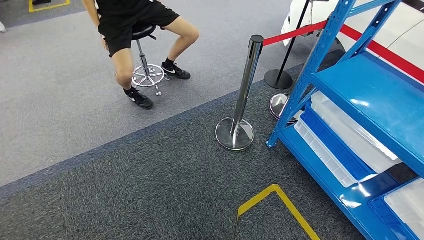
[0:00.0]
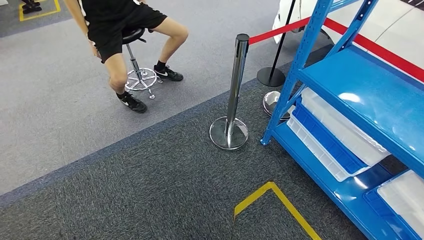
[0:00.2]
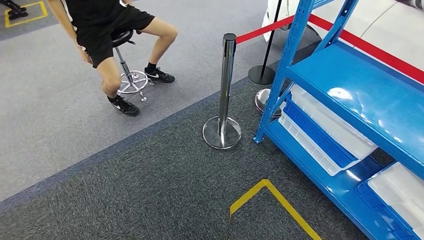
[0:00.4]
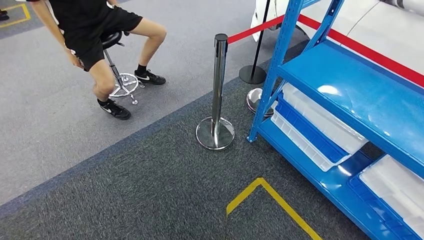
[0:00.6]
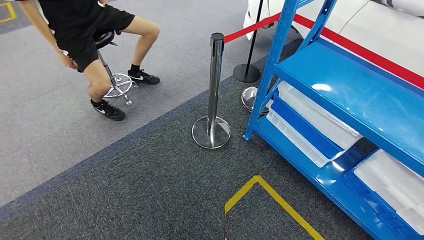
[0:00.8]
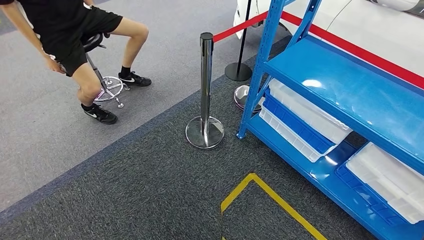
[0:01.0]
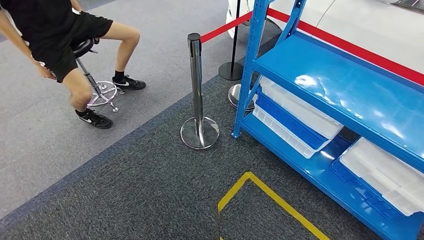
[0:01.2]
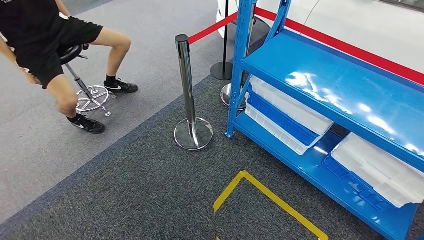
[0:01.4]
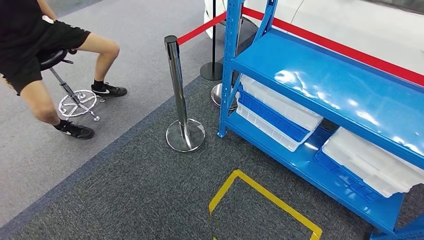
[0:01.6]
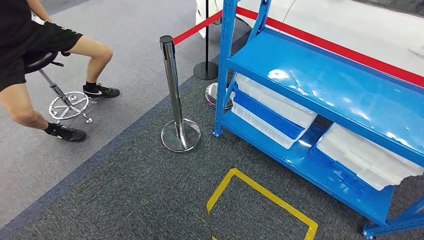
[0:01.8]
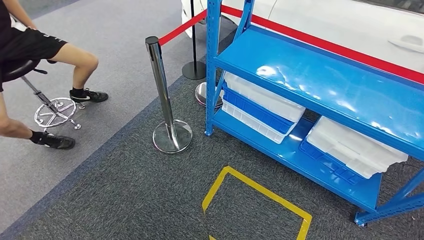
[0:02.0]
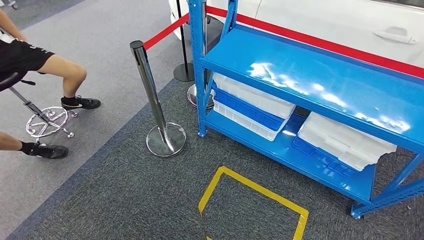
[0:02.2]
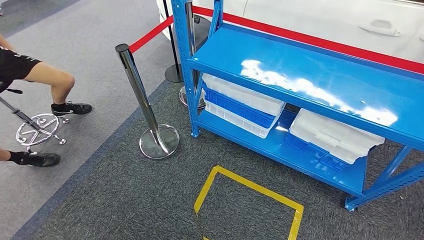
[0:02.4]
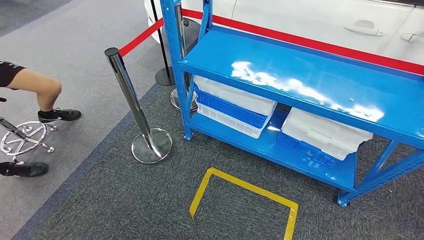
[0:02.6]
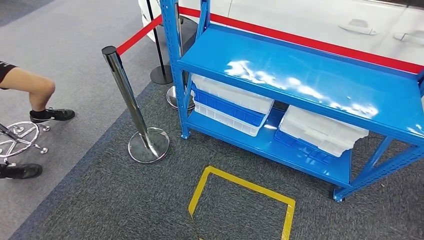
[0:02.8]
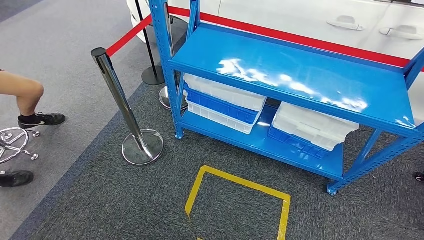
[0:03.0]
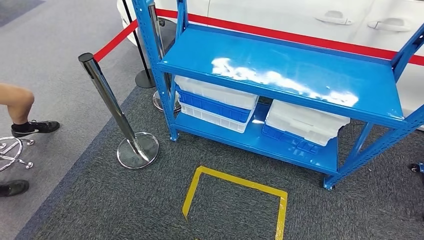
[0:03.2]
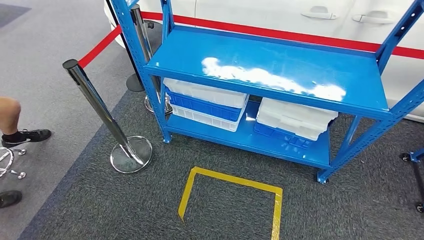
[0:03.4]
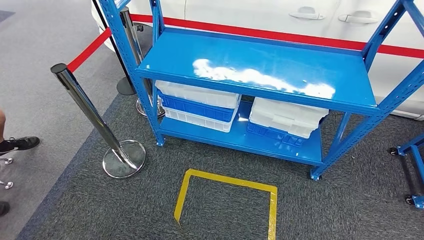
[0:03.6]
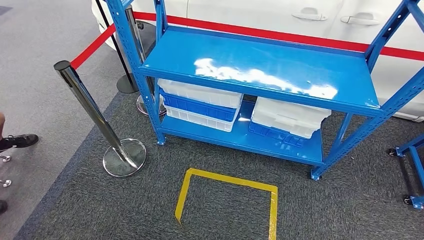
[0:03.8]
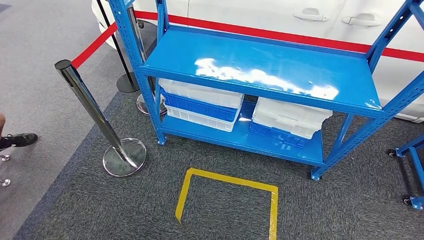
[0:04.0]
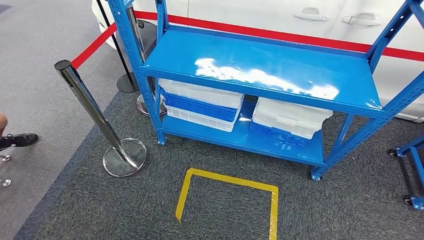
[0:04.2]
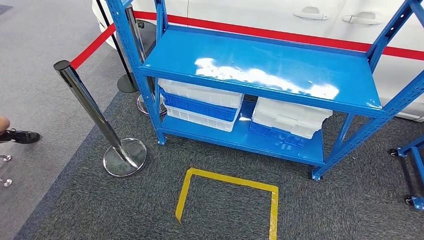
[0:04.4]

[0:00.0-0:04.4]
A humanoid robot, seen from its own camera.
Step, 0:00.0 to 0:04.4: Move to the initial position of the shelf.

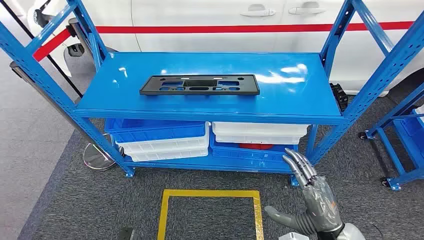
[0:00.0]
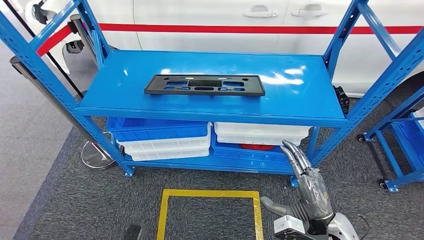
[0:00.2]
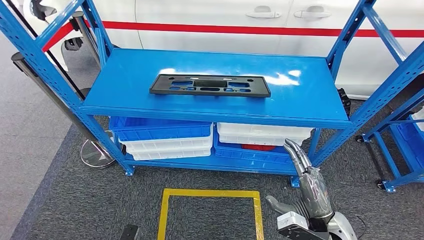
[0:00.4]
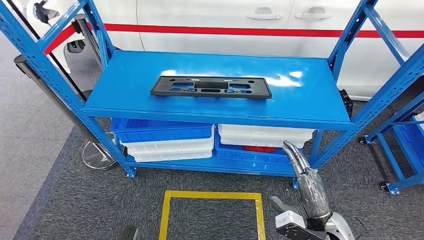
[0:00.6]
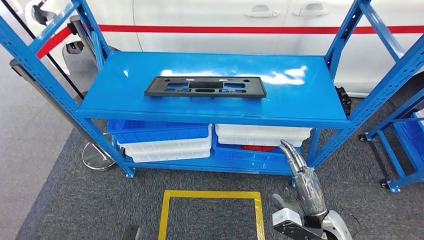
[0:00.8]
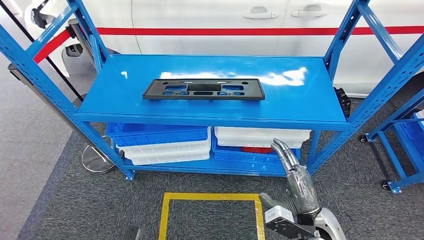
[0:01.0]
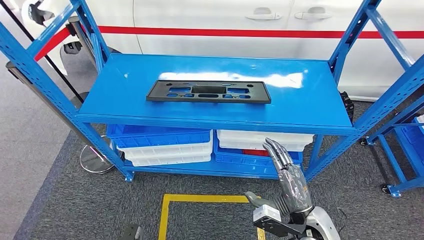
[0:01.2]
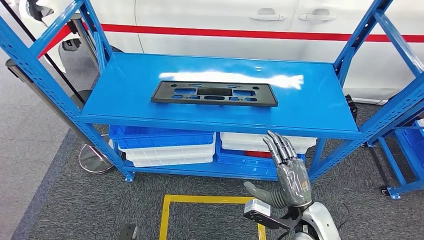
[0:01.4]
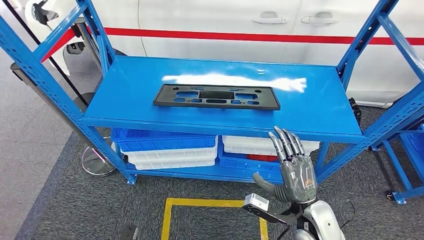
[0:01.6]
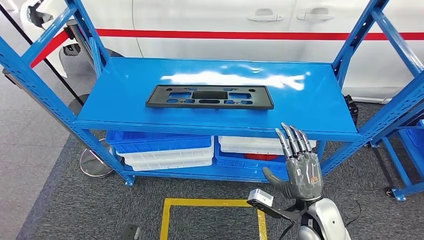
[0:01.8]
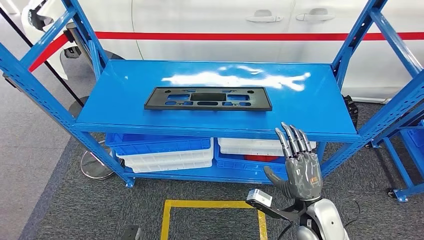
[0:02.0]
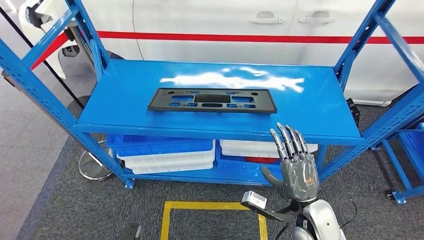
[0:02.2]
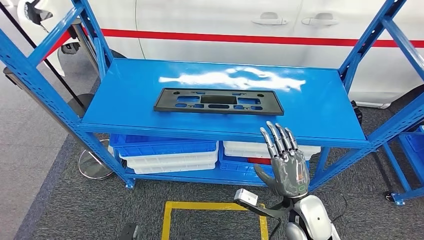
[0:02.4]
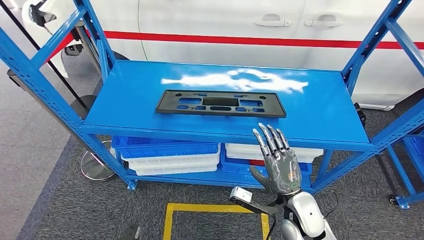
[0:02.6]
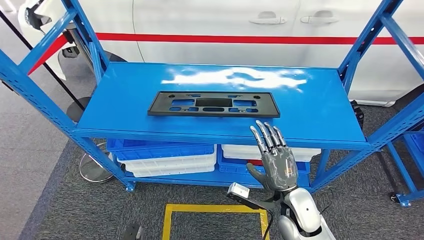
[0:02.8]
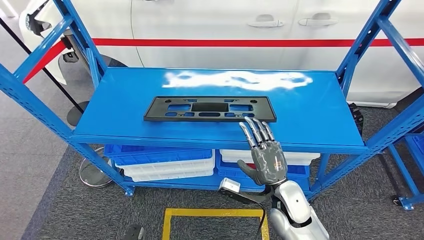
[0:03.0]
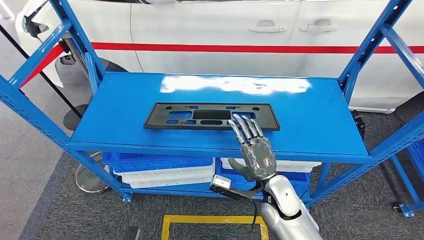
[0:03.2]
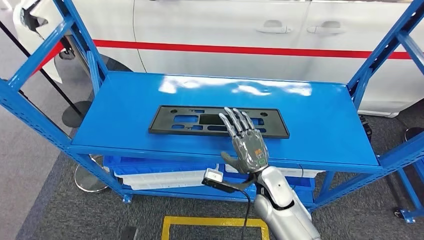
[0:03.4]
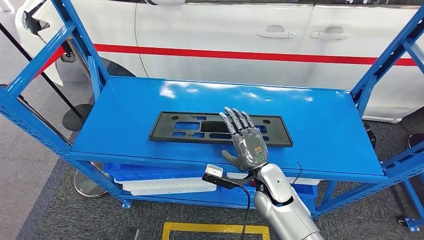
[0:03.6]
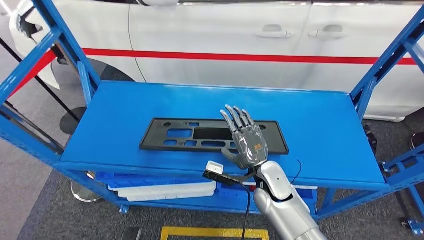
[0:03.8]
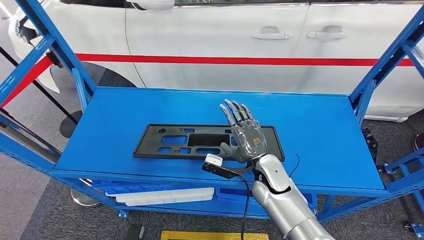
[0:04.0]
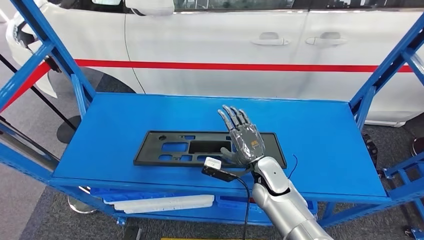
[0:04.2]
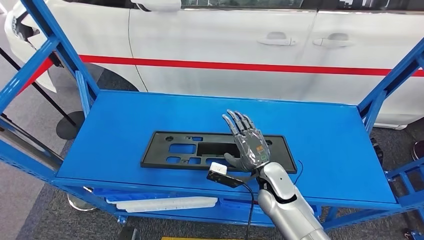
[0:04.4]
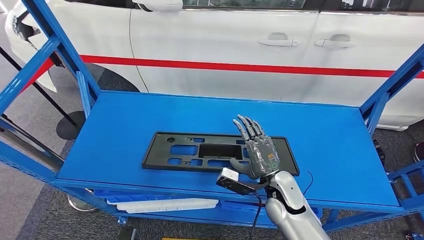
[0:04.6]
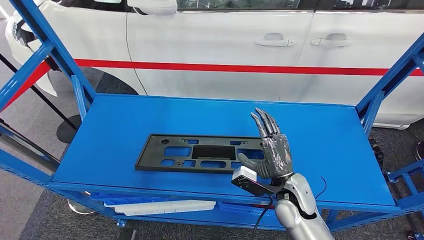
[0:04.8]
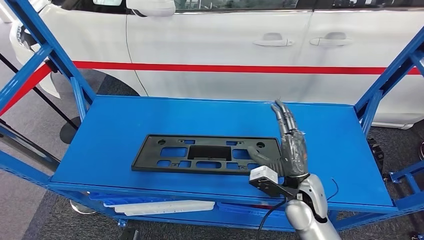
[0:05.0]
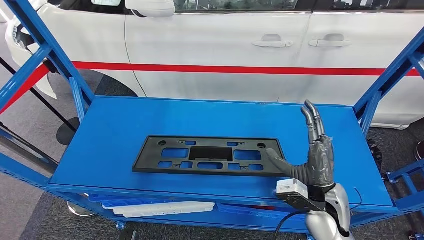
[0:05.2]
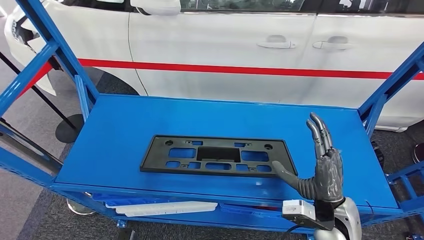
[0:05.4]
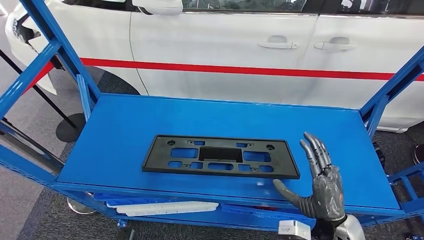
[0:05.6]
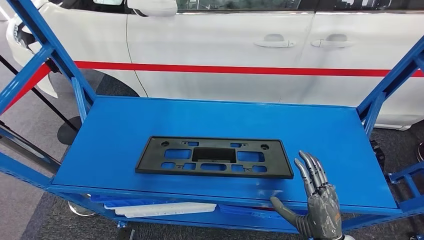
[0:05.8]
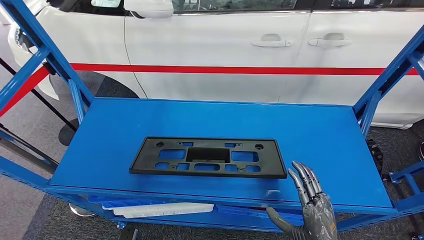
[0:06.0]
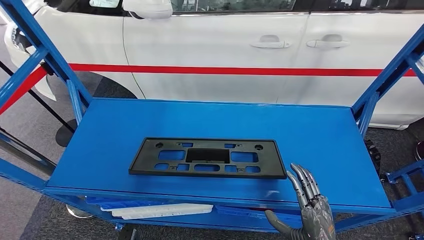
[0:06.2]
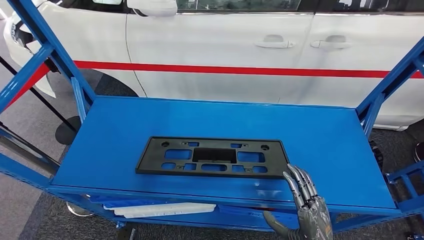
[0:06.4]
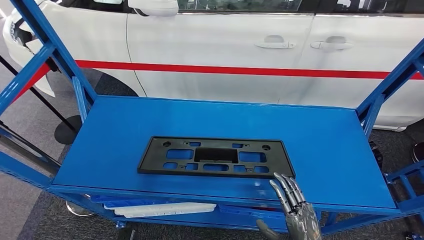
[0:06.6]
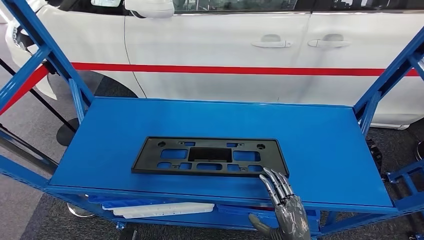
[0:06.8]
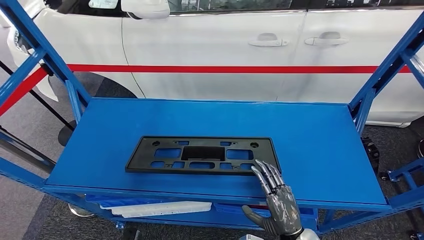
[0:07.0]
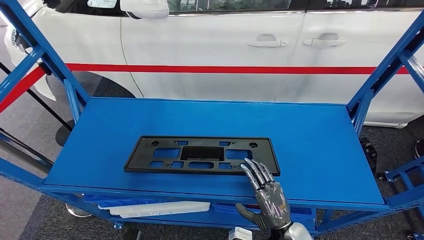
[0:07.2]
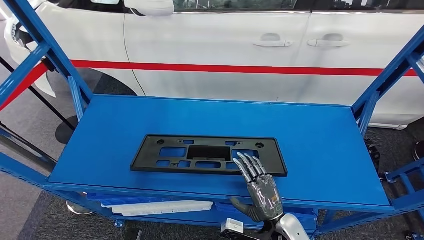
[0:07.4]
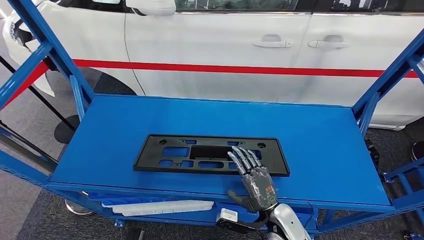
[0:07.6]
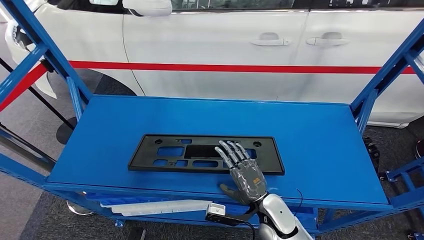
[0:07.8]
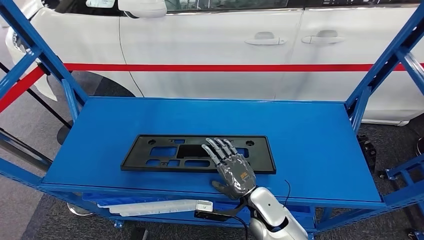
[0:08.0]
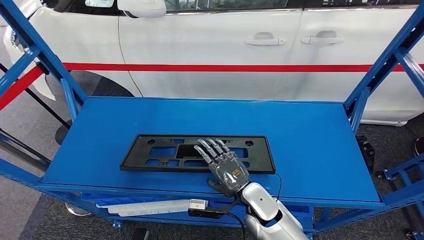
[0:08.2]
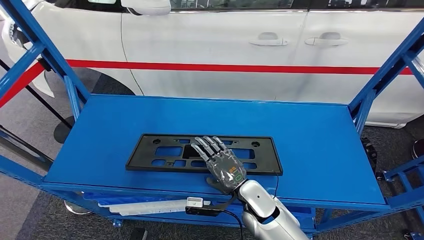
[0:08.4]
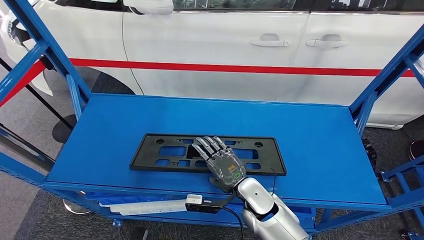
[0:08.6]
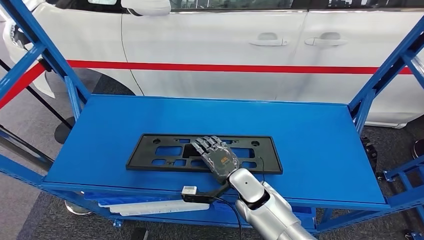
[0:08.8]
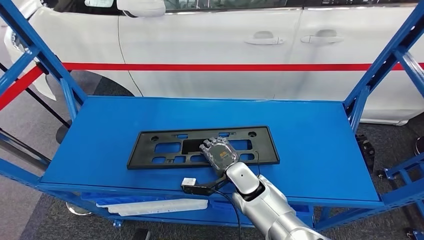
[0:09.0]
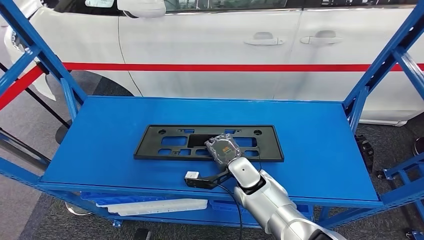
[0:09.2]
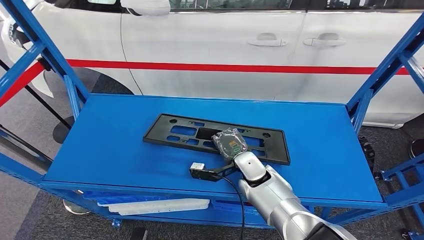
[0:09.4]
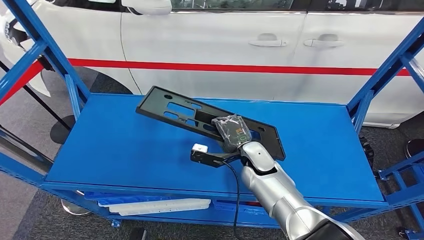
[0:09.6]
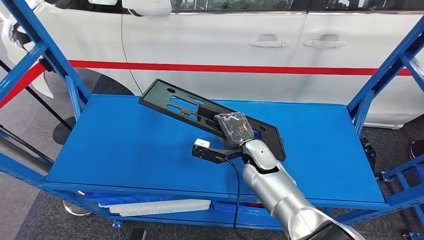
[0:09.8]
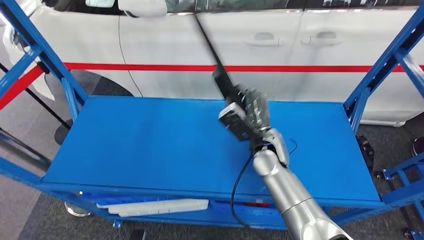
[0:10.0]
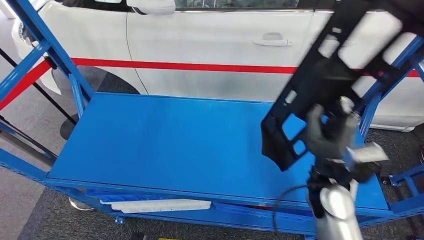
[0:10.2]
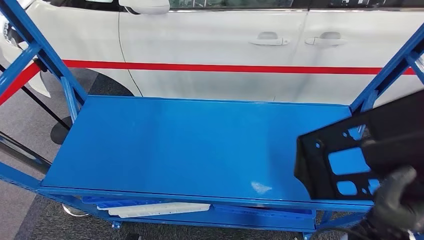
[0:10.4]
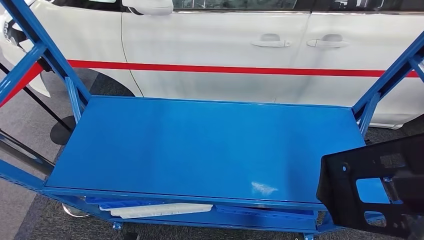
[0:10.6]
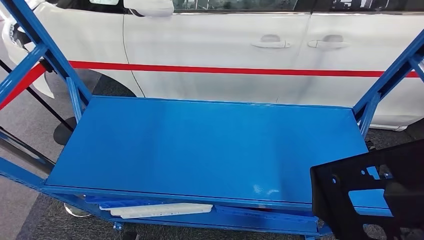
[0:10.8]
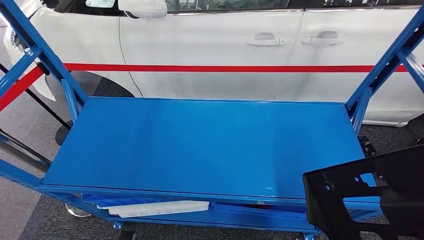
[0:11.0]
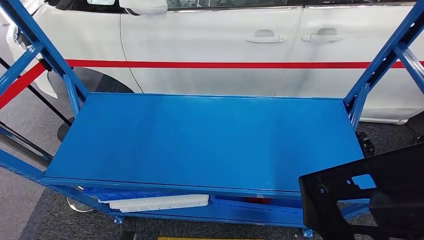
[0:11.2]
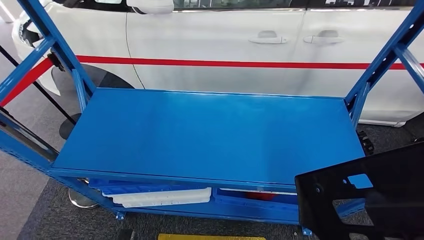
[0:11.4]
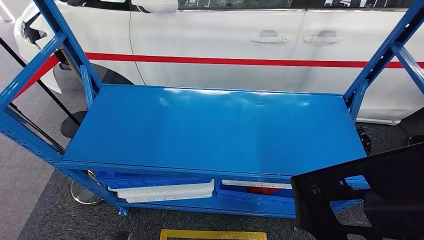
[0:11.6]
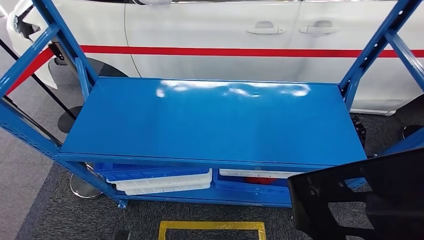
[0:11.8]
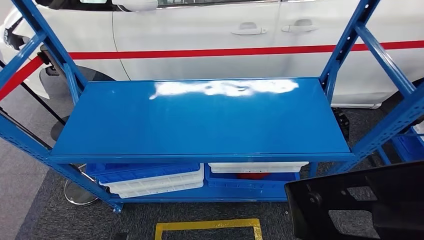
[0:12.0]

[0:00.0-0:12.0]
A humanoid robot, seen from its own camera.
Step, 0:00.0 to 0:11.4: Pick up the large material from the shelf.

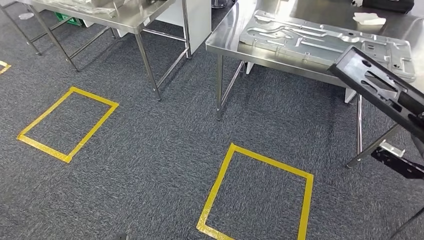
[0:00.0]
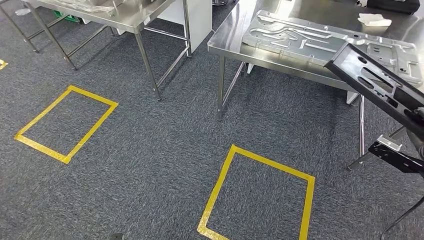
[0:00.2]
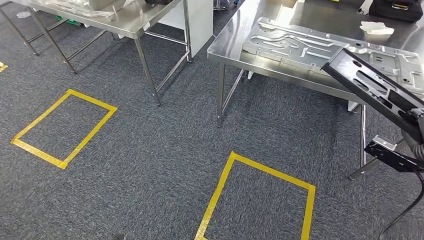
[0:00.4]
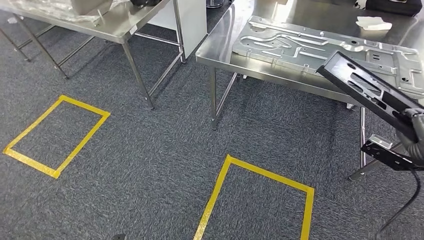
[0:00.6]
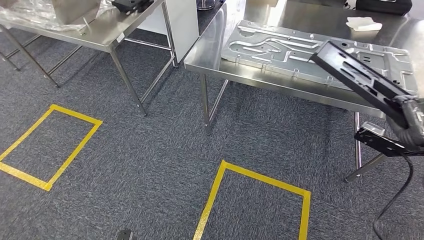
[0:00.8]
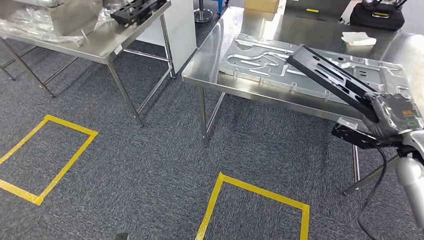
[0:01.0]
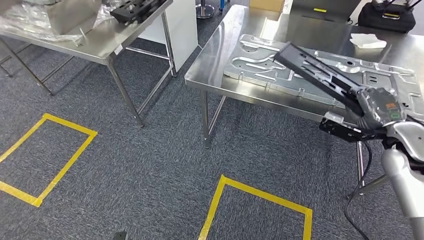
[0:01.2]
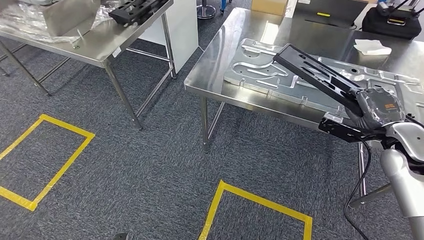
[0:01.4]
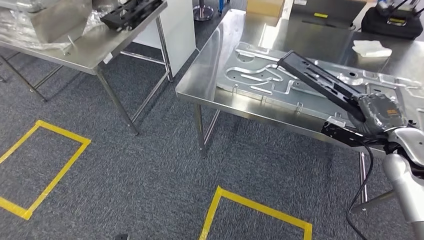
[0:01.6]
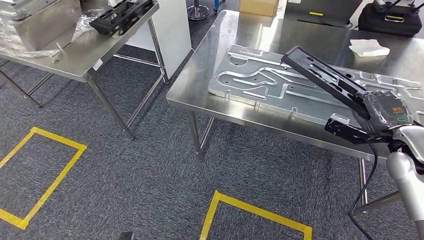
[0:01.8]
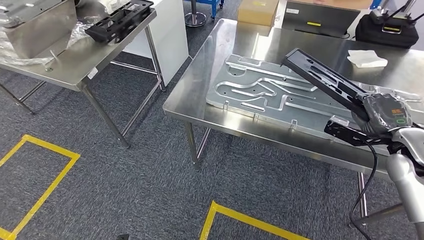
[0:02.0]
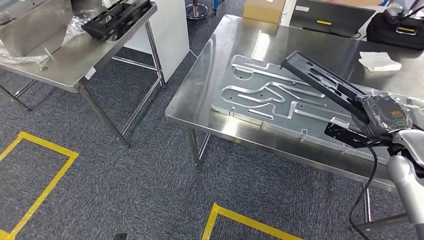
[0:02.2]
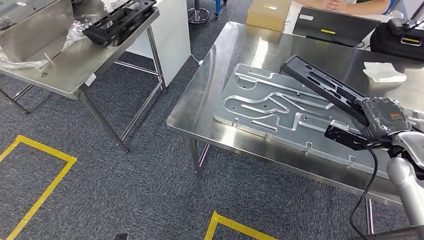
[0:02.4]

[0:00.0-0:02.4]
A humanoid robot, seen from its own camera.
Step, 0:00.0 to 0:02.0: Move the large material to the workbench.
